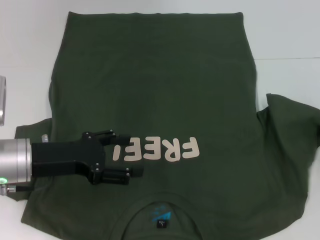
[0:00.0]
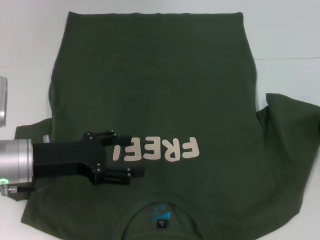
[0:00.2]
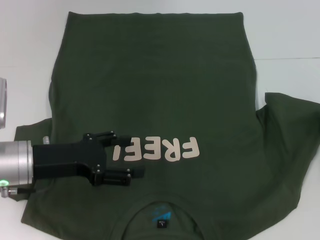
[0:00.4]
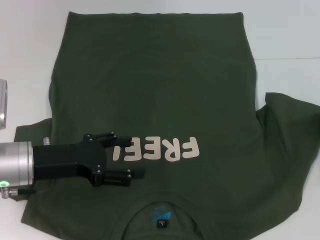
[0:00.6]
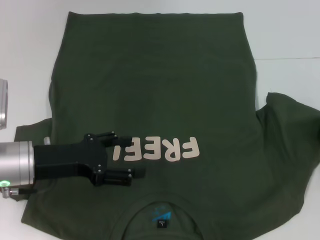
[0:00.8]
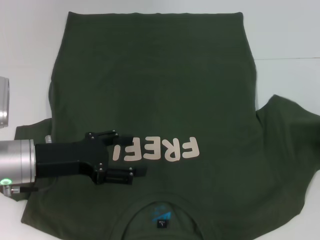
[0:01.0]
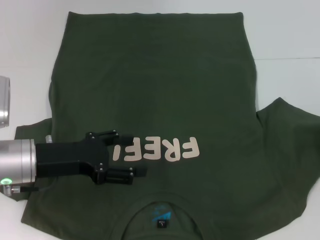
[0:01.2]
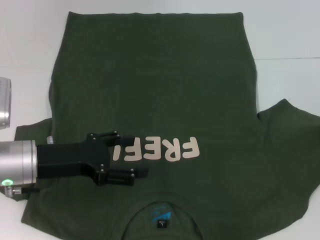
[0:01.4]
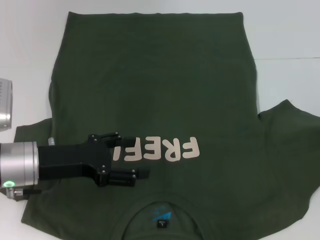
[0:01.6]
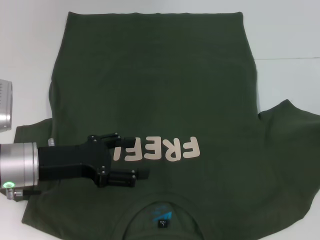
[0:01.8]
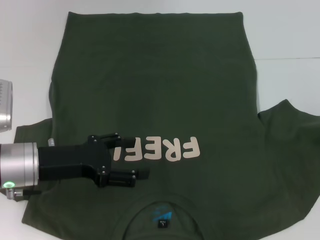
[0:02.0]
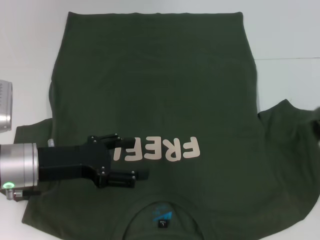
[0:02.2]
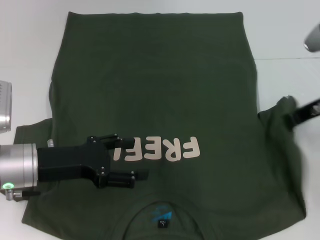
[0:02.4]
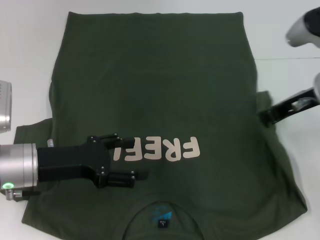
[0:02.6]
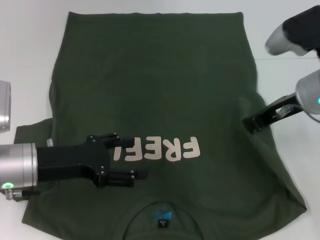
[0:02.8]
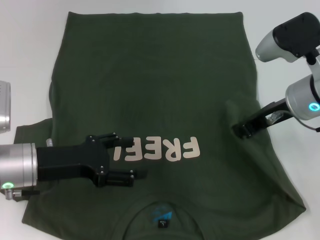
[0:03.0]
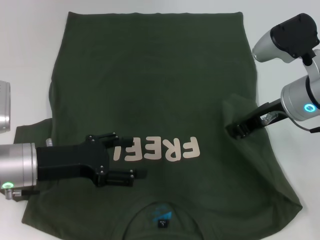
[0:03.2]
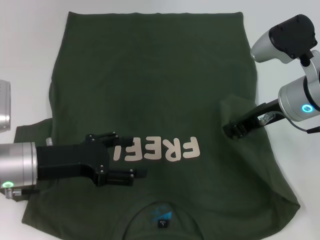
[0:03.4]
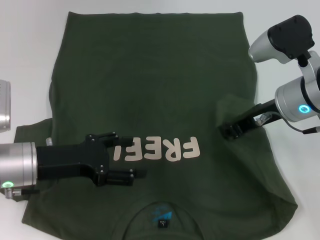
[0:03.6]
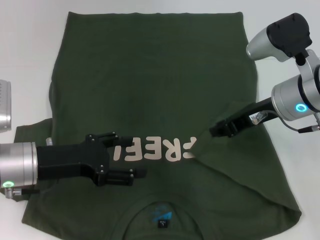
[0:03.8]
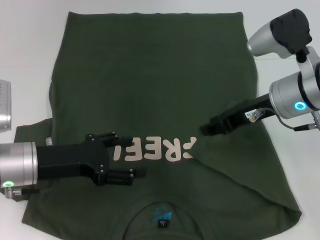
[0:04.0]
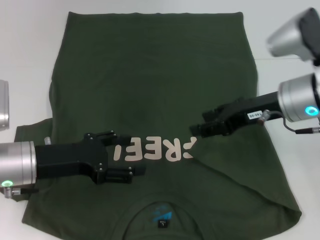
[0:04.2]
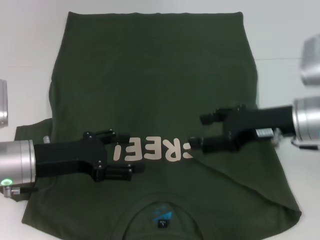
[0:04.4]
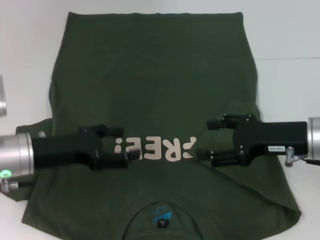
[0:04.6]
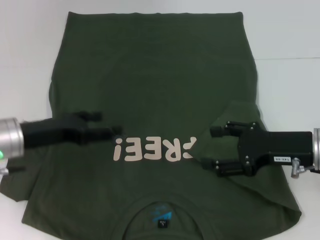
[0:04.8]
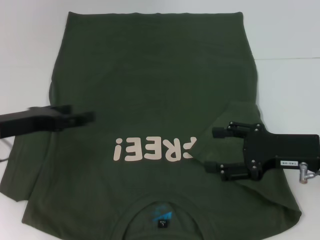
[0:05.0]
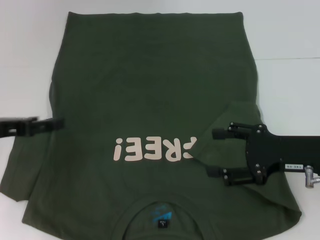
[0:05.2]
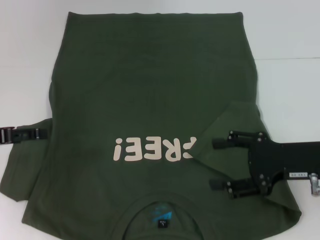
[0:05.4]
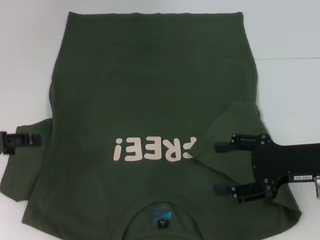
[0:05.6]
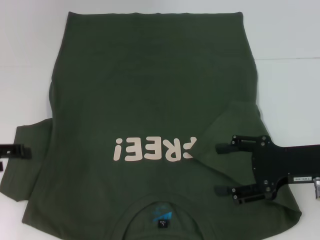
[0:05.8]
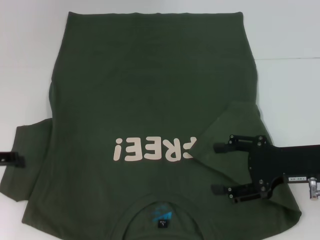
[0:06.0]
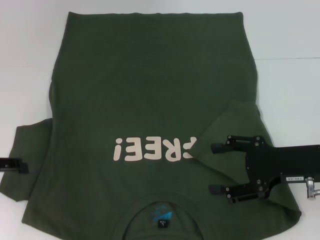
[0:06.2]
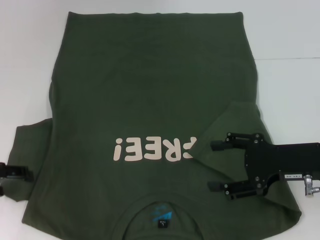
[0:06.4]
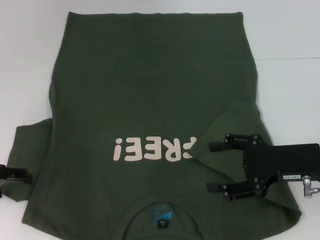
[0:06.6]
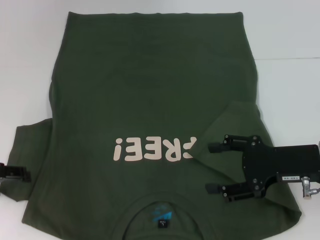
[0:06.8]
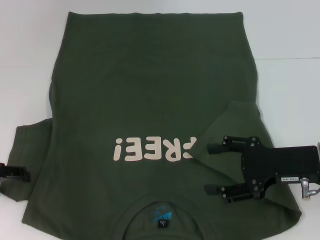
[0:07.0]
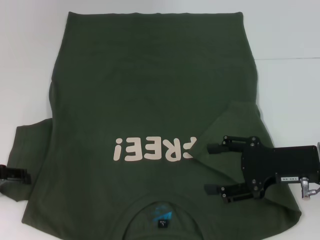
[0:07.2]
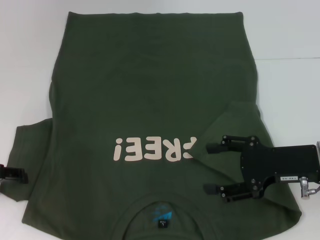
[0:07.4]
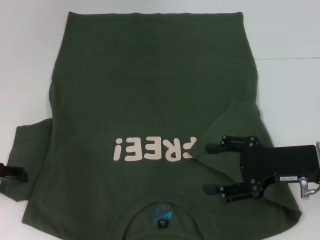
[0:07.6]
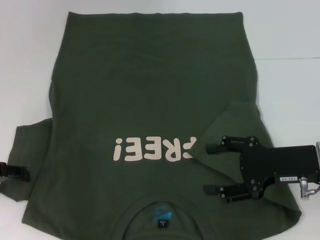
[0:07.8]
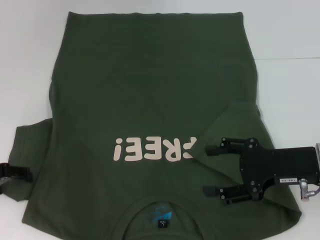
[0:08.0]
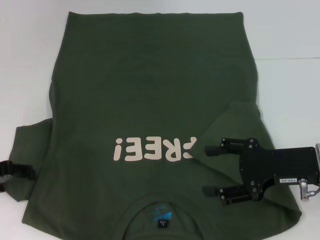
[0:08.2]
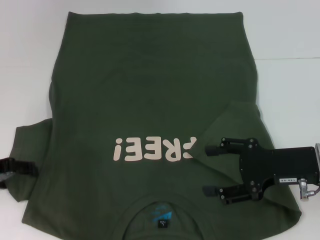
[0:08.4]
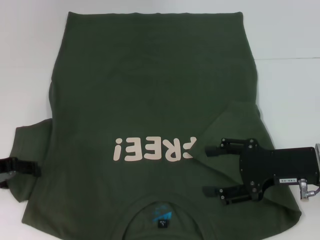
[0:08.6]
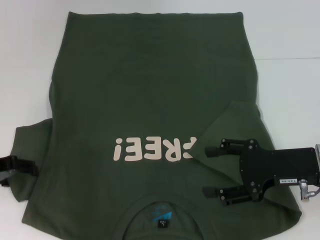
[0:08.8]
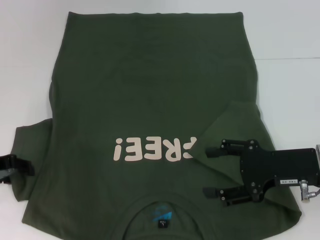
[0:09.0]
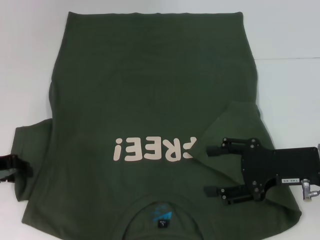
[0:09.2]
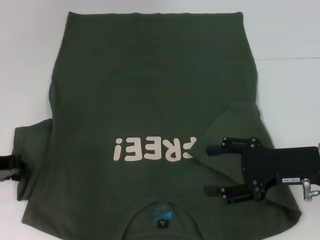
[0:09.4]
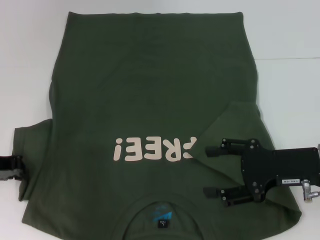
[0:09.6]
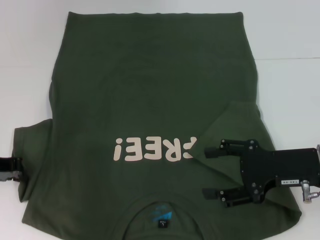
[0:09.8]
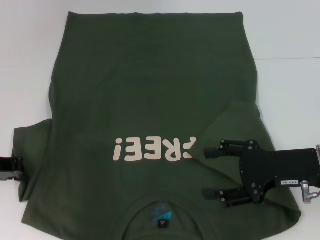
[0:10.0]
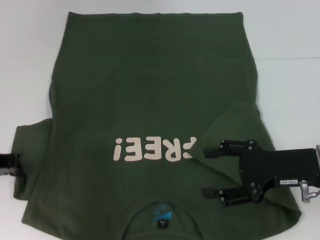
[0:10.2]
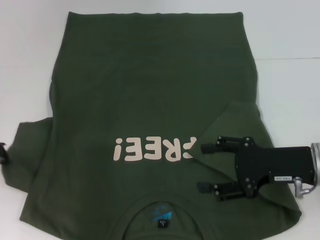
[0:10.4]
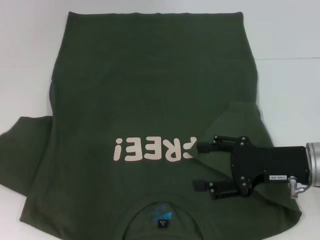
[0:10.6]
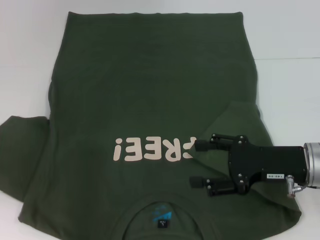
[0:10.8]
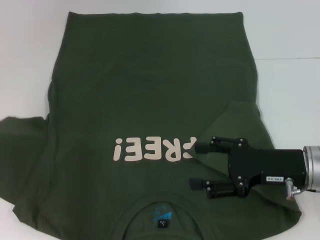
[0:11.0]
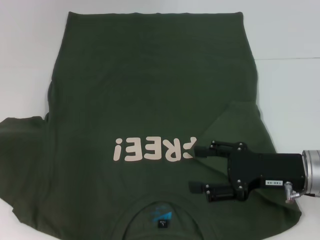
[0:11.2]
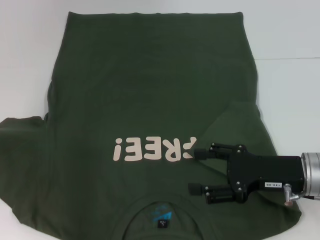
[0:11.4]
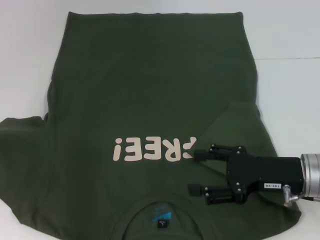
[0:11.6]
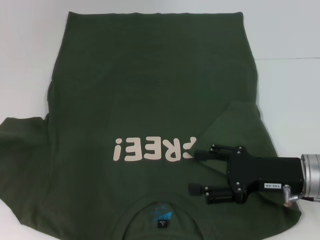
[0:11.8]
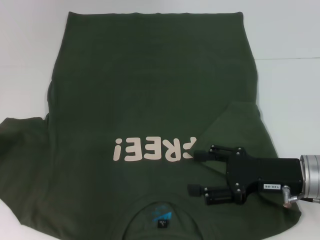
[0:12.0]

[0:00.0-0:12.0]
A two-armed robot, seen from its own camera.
Step, 0:00.0 to 0:03.8: Fold the bottom right sleeve with your right hand.
0:00.0 to 0:01.6: The grippers move only a little.
0:01.6 to 0:03.0: The right gripper travels to the left by roughly 15 cm.
0:03.0 to 0:04.4: The right gripper opens its fingers.
0:04.4 to 0:06.0: The right gripper changes place by approximately 5 cm. The left gripper heads to the left and upward, covering some 10 cm.
0:06.0 to 0:09.0: The grippers stay close to where they were, moving slightly.
0:09.0 to 0:10.4: The left gripper closes.
0:10.4 to 0:12.0: The grippers move only a little.

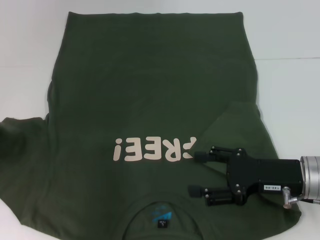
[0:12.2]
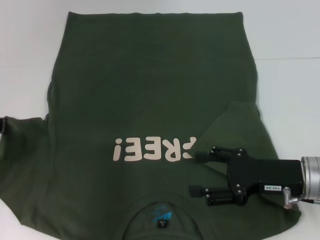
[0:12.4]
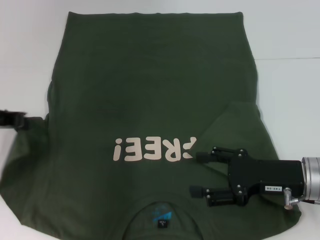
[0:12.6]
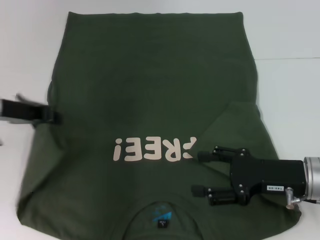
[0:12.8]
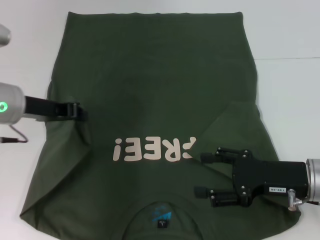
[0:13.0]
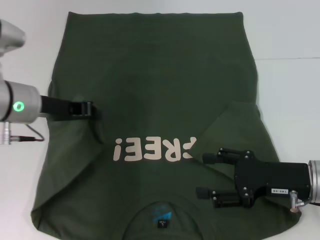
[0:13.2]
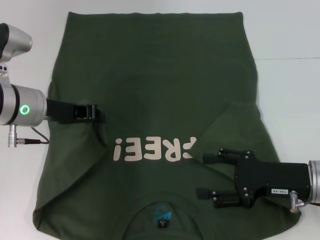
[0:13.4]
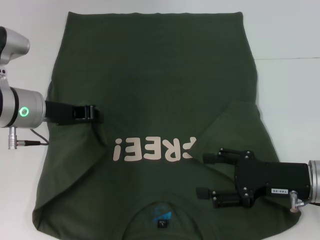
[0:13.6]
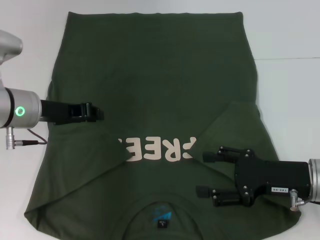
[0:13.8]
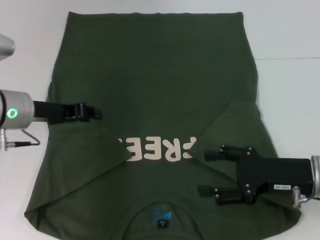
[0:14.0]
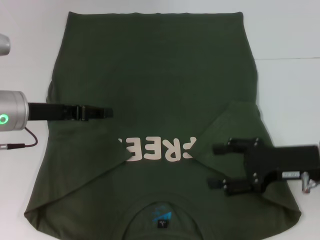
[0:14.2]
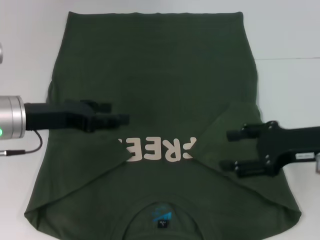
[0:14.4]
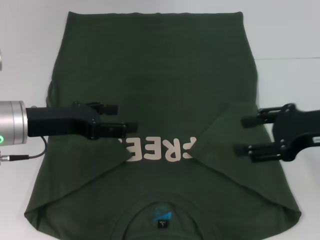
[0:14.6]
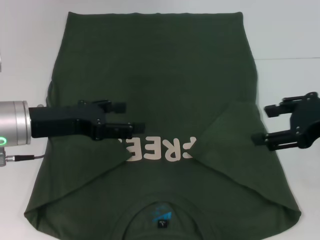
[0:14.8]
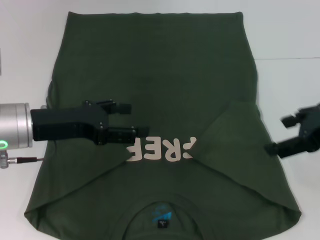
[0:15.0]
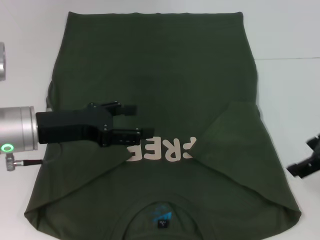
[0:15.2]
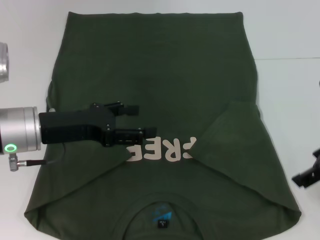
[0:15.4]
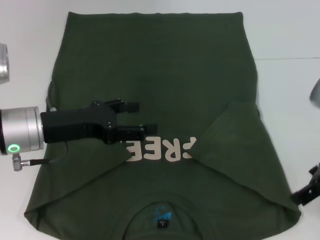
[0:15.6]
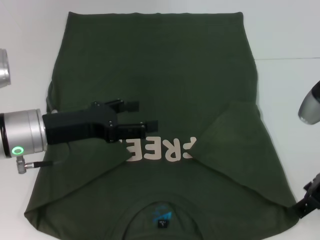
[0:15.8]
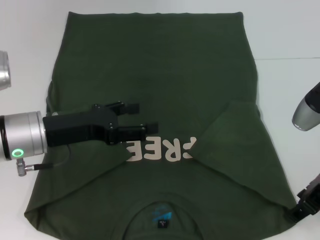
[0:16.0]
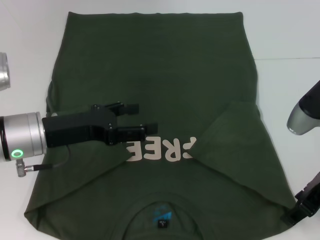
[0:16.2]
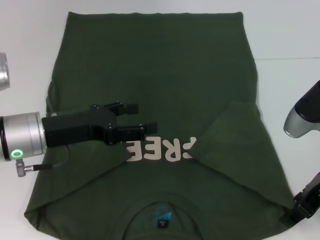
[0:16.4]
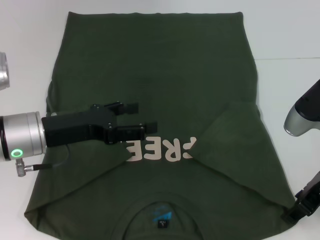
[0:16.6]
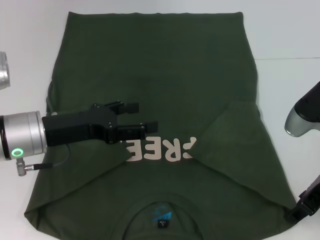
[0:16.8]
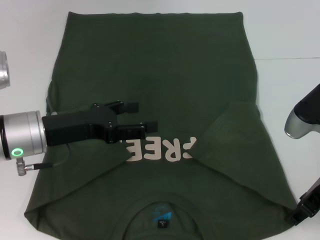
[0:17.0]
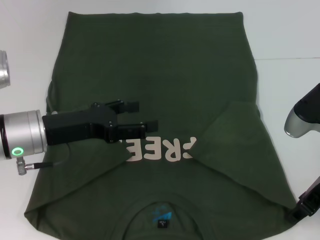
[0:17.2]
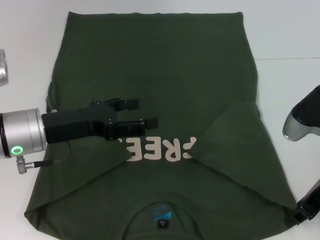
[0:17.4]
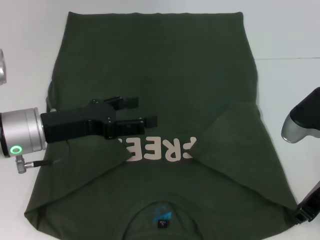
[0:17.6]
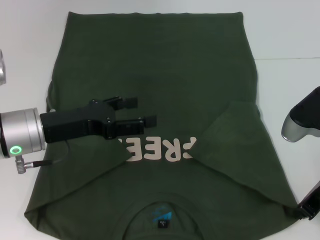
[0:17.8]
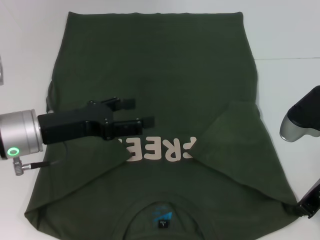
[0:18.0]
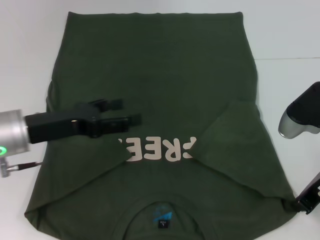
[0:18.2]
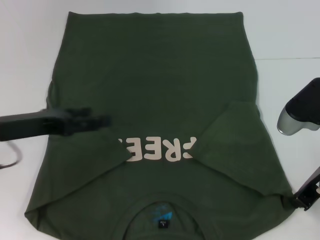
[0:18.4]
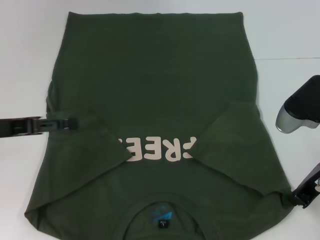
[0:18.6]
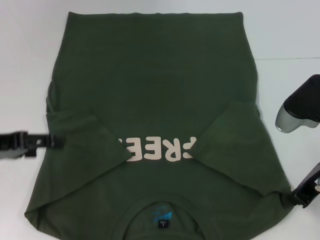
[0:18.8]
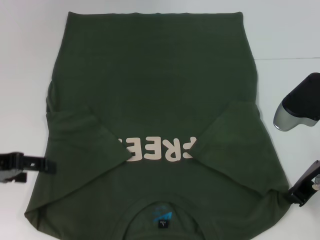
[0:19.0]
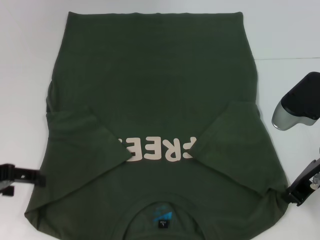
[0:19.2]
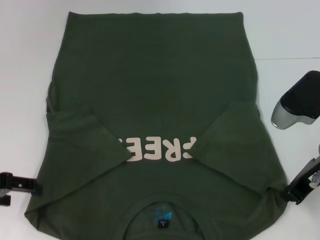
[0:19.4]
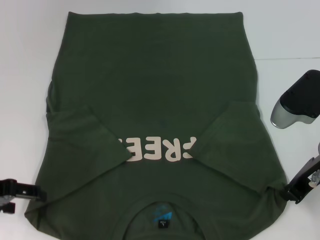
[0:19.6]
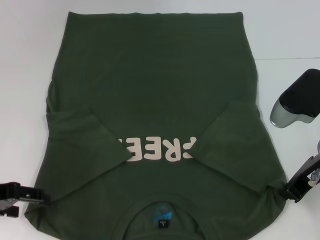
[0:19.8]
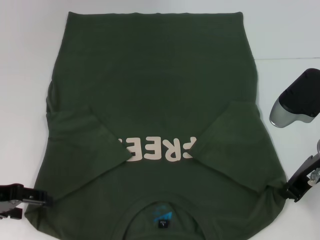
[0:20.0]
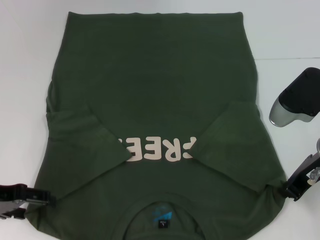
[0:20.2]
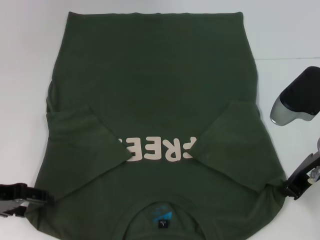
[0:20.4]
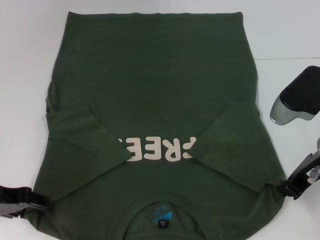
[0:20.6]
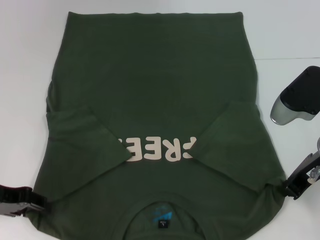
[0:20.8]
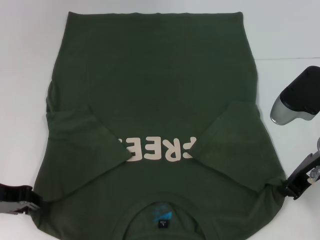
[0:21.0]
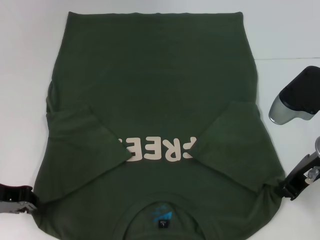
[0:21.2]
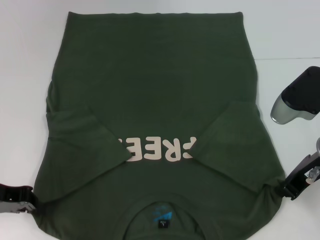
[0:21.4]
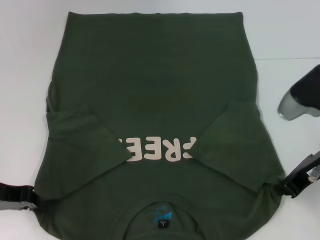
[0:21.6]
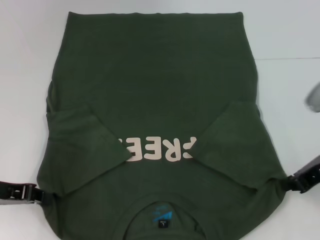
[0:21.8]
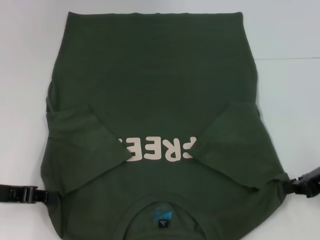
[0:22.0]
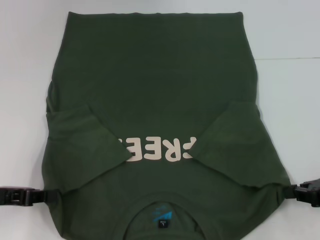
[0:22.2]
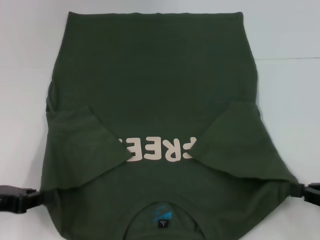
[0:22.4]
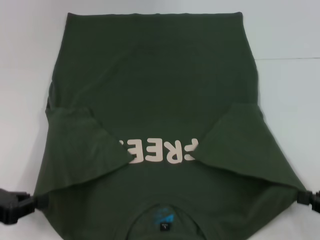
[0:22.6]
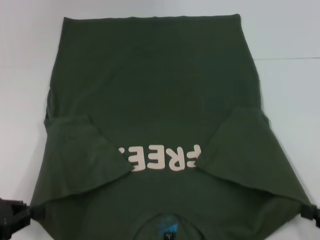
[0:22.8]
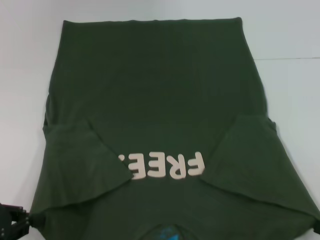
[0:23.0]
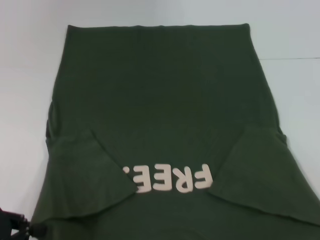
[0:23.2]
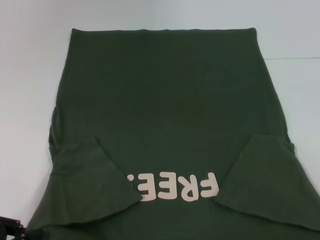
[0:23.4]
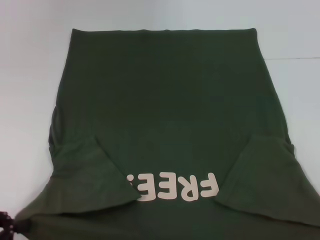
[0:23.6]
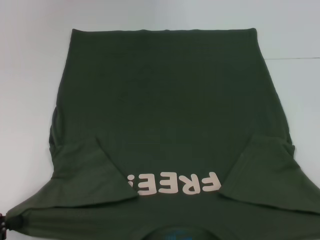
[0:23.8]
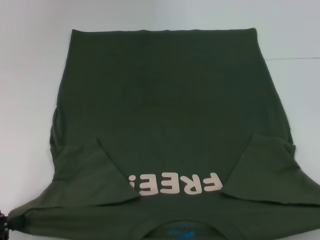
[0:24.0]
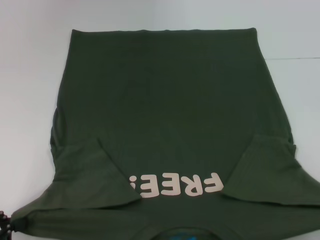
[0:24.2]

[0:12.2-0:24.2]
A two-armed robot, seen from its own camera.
Step, 0:14.0 to 0:18.0: Grab the bottom right corner with your right hand.
Step, 0:18.2 to 0:21.8: Grab the bottom left corner with your left hand.
0:12.2 to 0:13.8: The left gripper shifts roughly 10 cm to the right.
0:13.8 to 0:15.2: The right gripper heads upward, covering approximately 15 cm. Meanwhile the left gripper heads backward, covering about 5 cm, and opens up.
0:15.2 to 0:16.6: The right gripper is displaced downward by about 5 cm.
0:16.6 to 0:18.2: The right gripper closes its fingers.
0:18.2 to 0:19.8: The left gripper travels to the left by roughly 10 cm.
0:19.8 to 0:21.2: The left gripper closes.
0:21.2 to 0:22.6: The left gripper shifts approximately 5 cm backward, and closes its fingers. The right gripper shifts roughly 20 cm to the right, backward and downward.
0:22.6 to 0:24.2: The left gripper goes roughly 5 cm backward, while the right gripper travels backward by roughly 10 cm.
